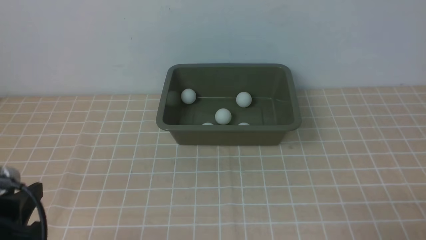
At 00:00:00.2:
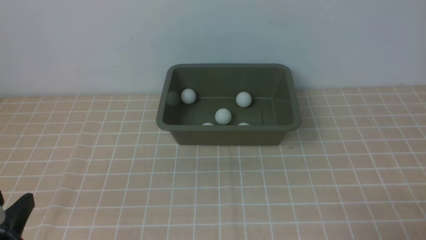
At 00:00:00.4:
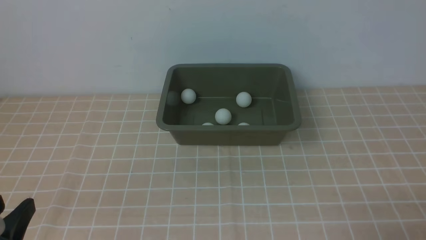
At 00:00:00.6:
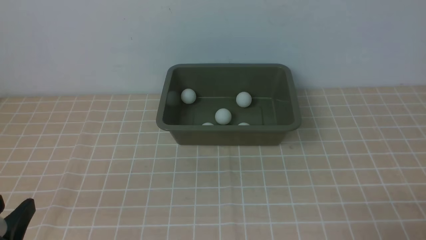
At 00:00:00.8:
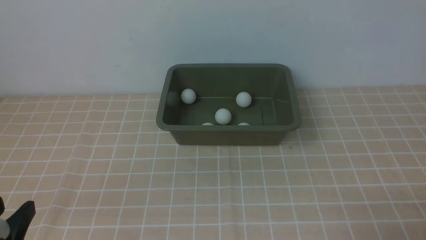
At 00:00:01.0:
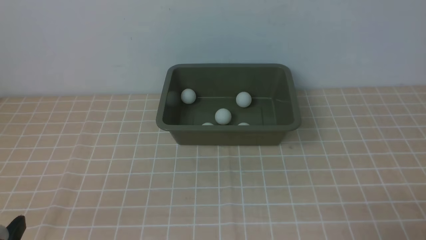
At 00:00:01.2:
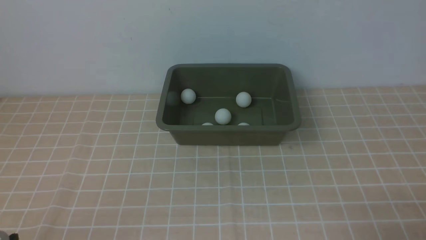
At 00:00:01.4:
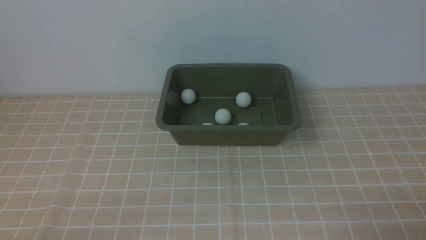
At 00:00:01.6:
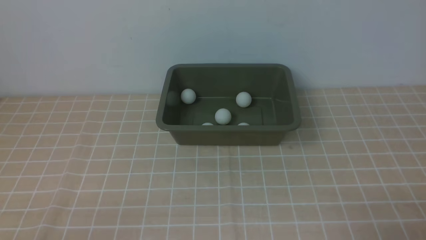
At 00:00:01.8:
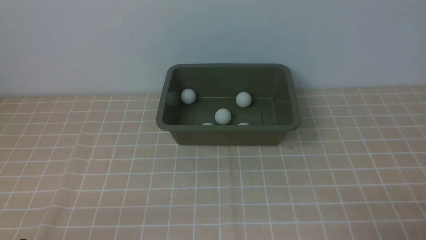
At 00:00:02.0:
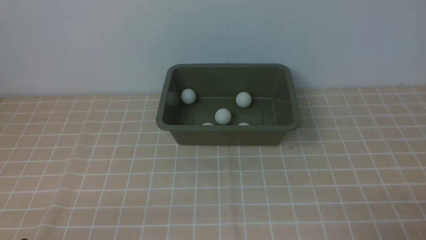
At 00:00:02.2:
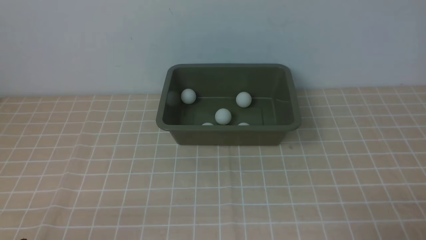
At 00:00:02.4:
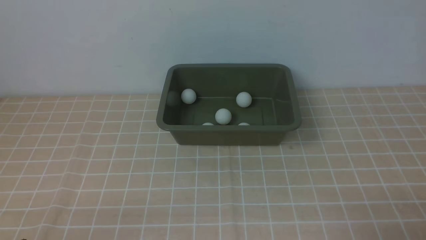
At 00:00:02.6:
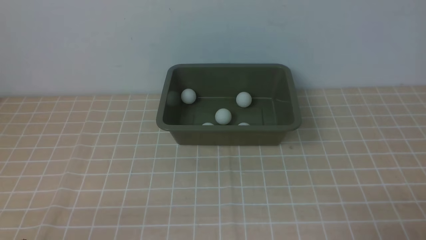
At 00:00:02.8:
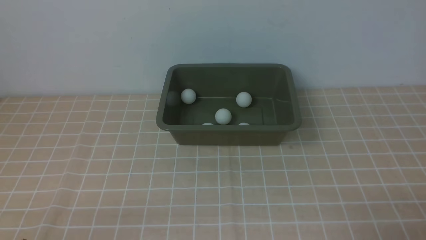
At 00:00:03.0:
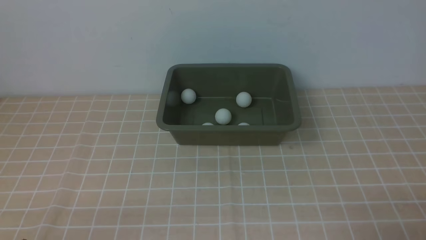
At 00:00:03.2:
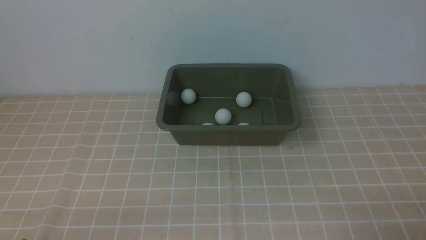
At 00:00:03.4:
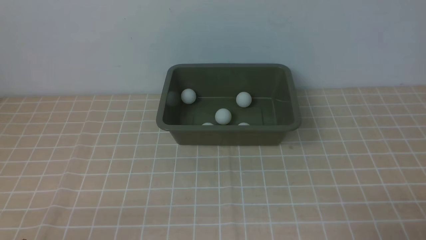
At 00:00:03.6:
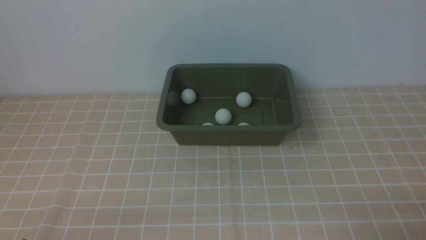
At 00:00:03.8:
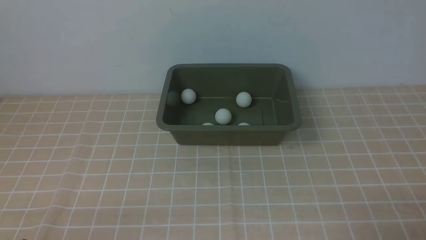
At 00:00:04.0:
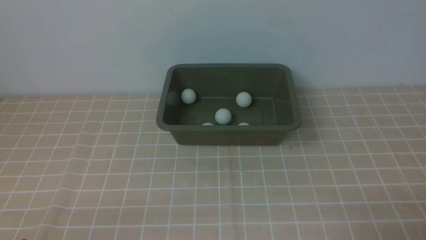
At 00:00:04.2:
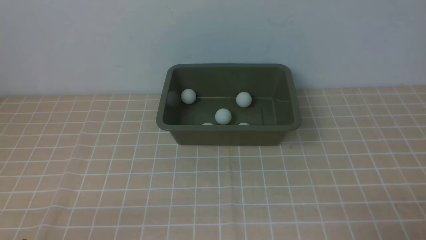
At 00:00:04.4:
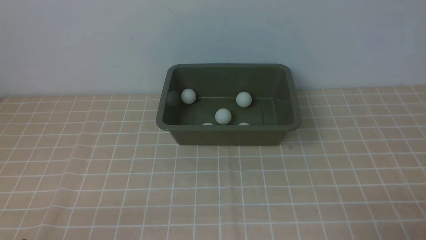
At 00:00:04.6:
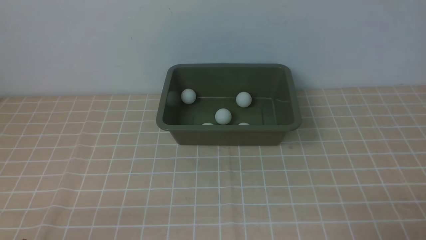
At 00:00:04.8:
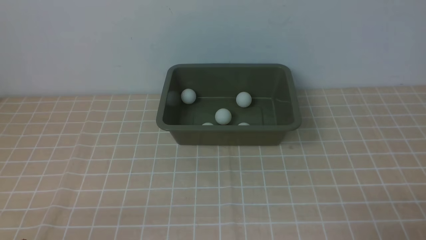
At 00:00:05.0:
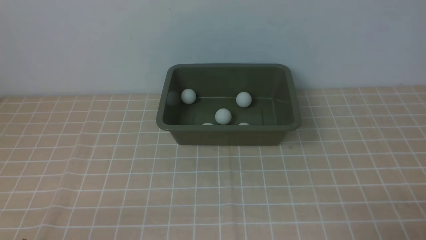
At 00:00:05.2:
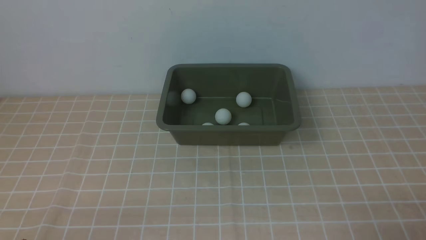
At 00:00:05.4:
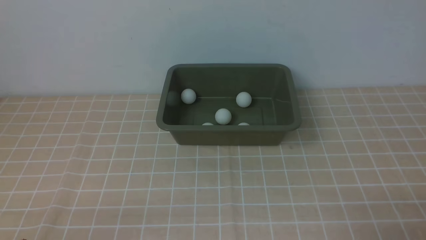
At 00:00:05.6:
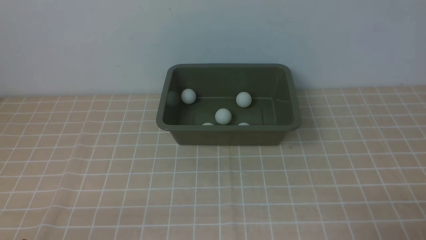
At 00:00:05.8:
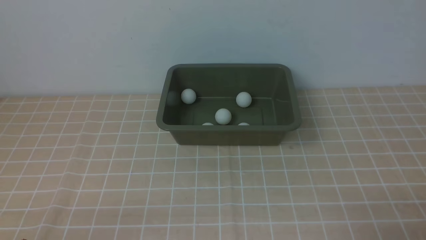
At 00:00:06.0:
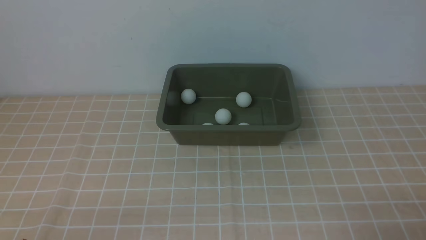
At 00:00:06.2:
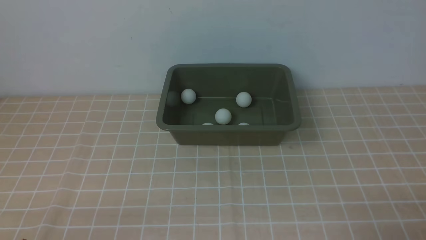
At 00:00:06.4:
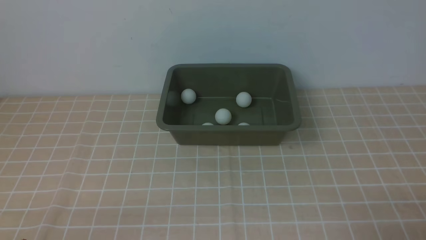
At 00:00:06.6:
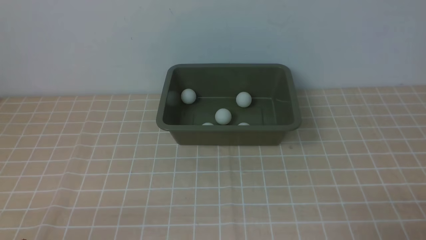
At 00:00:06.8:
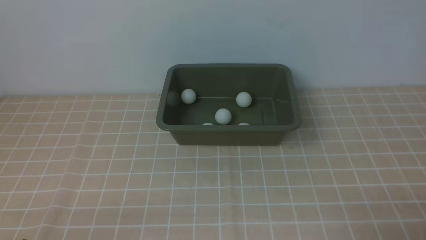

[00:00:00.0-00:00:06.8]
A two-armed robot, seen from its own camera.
00:00:00.0 to 00:00:01.4: The left gripper moves downward, about 10 cm.
00:00:02.8 to 00:00:06.8: Neither gripper changes place.
